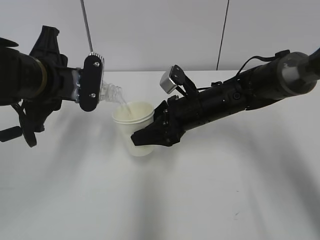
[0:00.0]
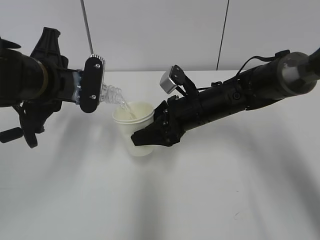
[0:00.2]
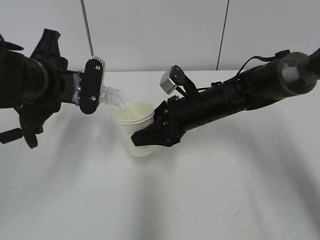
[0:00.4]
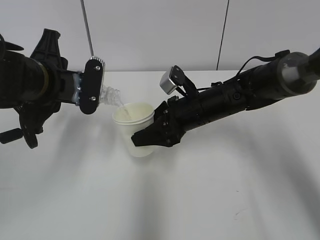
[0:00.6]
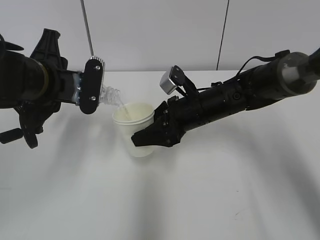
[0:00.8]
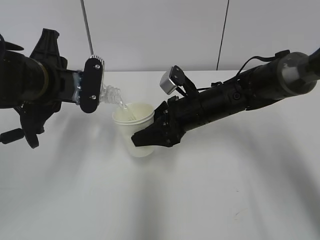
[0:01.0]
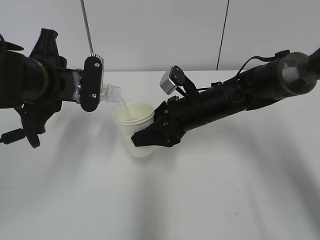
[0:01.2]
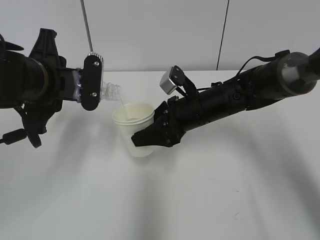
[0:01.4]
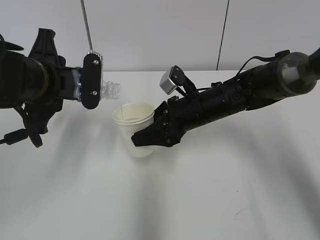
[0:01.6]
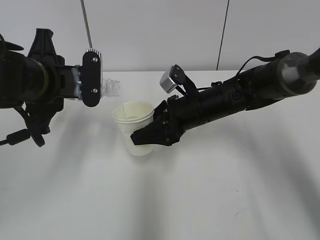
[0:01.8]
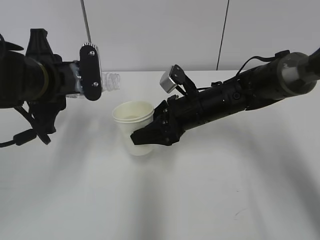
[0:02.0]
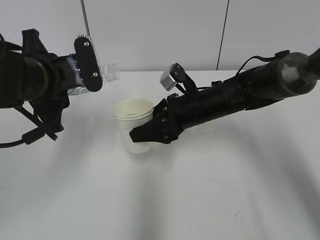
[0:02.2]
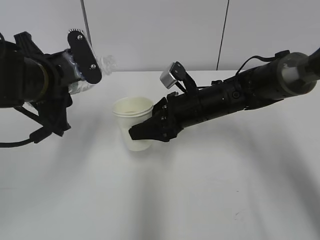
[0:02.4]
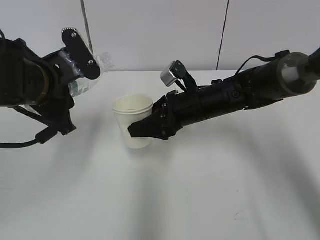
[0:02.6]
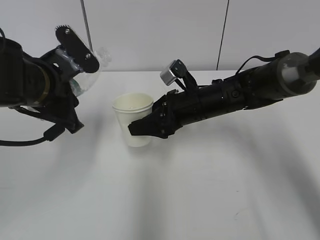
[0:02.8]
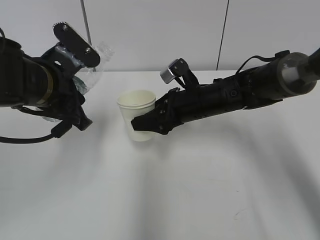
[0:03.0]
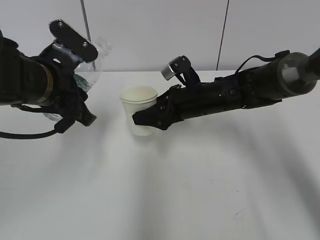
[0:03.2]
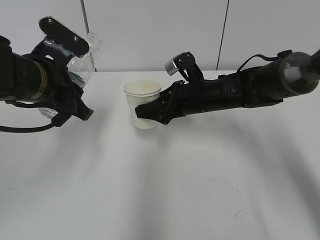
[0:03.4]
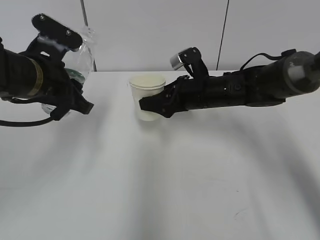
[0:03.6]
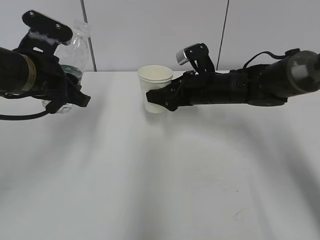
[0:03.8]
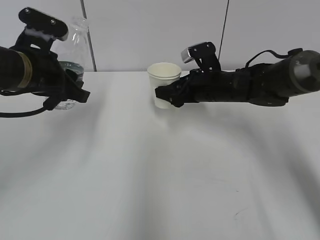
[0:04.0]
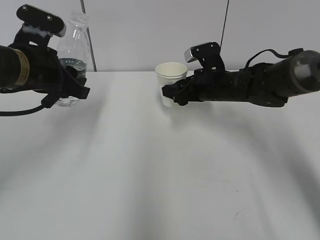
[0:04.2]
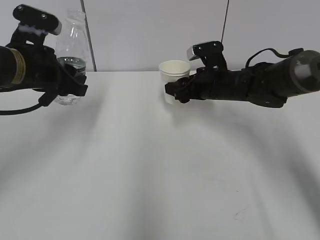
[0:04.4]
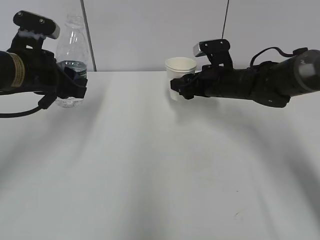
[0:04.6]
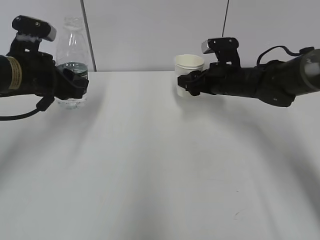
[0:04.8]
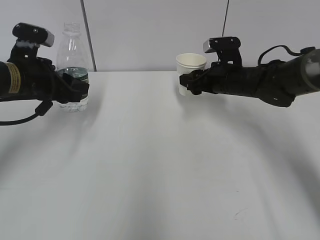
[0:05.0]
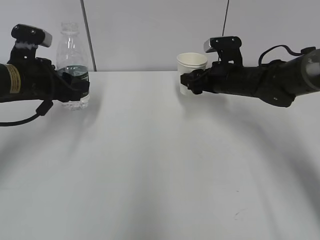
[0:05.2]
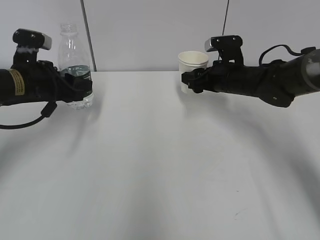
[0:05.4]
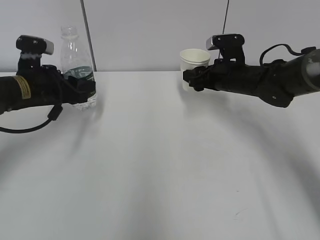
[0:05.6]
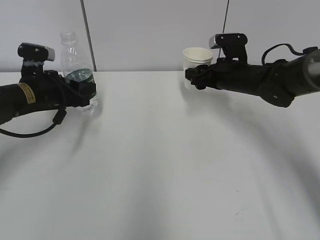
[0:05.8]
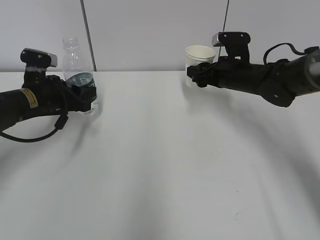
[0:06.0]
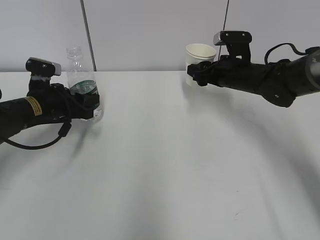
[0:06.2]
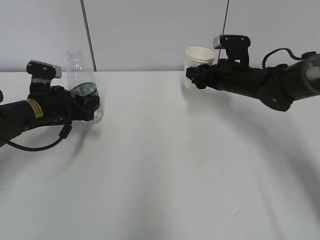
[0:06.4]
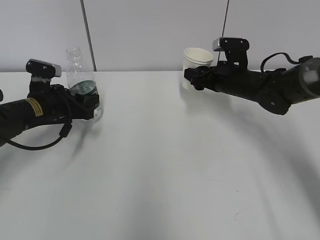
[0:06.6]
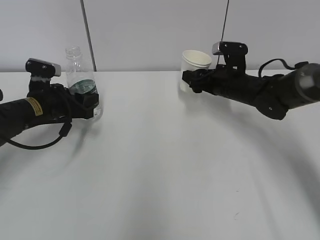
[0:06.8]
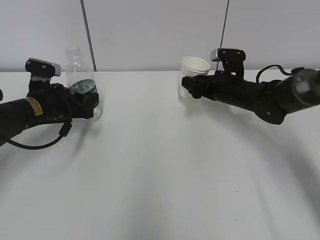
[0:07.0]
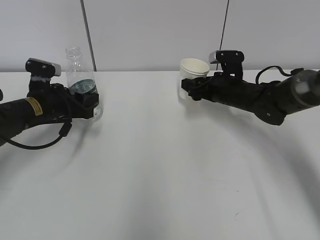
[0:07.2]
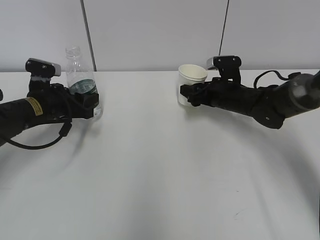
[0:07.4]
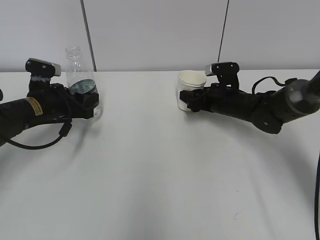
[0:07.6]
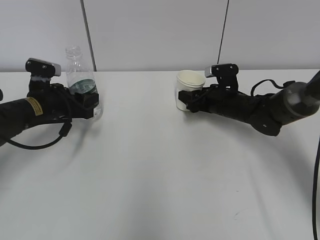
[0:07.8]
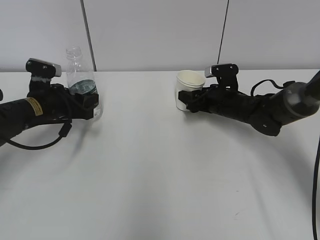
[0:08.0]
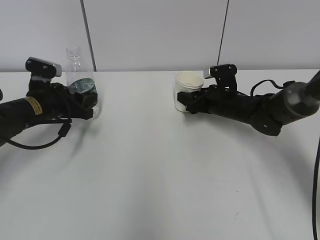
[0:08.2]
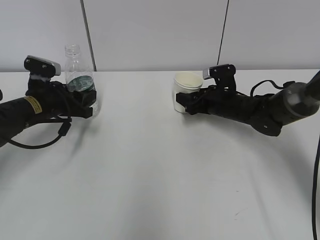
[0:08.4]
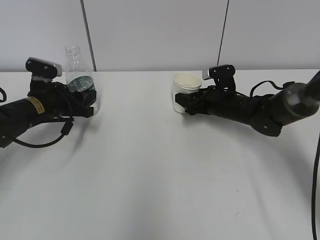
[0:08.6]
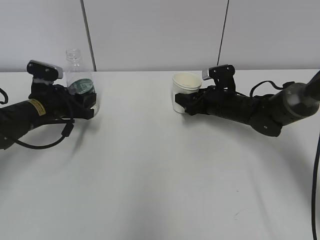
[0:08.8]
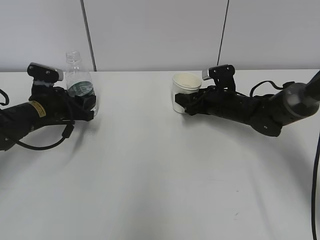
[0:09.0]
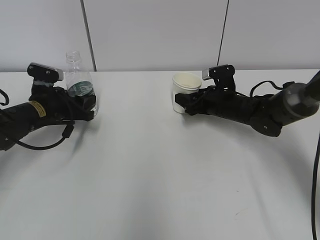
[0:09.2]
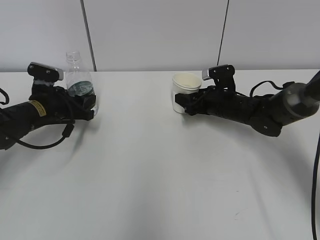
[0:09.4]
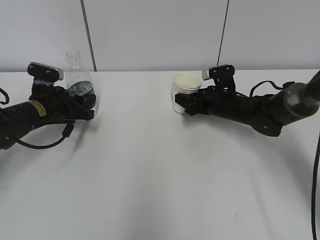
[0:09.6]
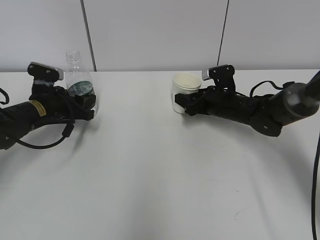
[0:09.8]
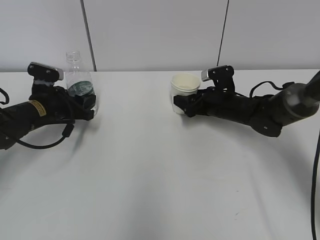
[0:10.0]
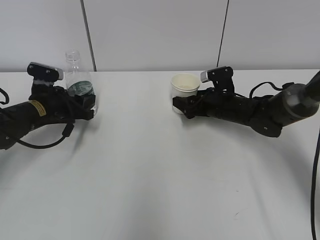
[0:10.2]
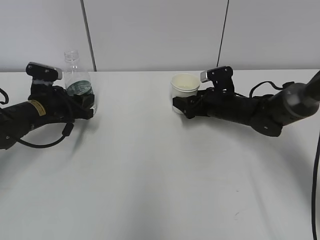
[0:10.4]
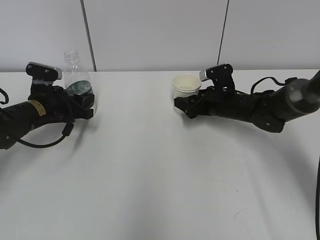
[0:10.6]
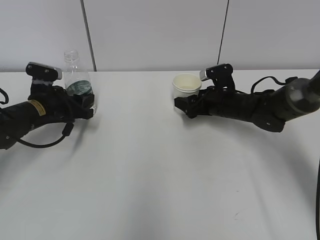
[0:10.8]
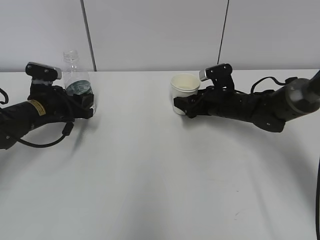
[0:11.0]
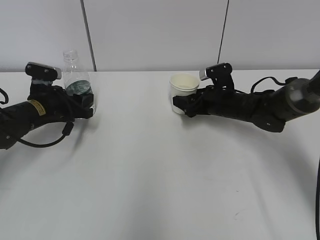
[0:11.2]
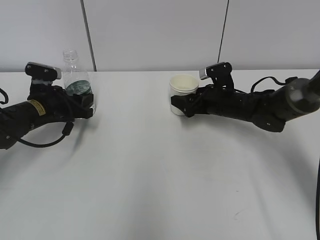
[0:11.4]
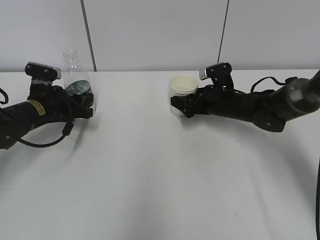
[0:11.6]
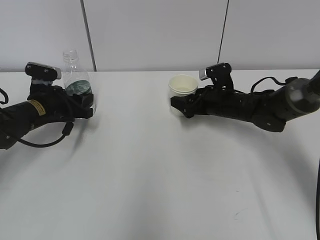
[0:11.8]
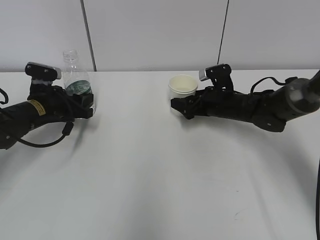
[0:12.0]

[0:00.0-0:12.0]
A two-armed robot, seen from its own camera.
Step, 0:00.8 to 0:07.4: Place the paper cup with the right hand.
Step, 0:07.6 to 0:09.0: Place the water bottle with the left hand.
0:00.0 to 0:01.6: Neither gripper changes place.
0:03.0 to 0:04.4: The left gripper moves approximately 5 cm. The right gripper moves to the right, some 5 cm.
0:04.4 to 0:06.0: The left gripper travels downward and forward by roughly 10 cm.
0:06.0 to 0:07.6: The right gripper heads downward, covering about 5 cm.
0:07.6 to 0:09.0: There are only small adjustments of the grippers.
0:09.0 to 0:10.4: The right gripper opens.
0:10.4 to 0:12.0: Both grippers stay about where they are.

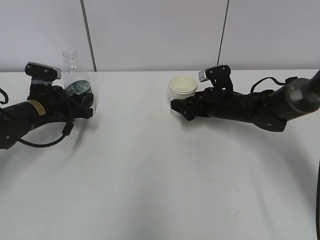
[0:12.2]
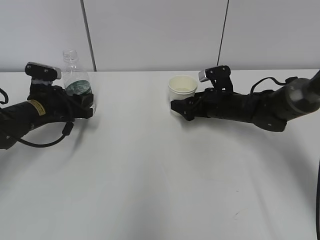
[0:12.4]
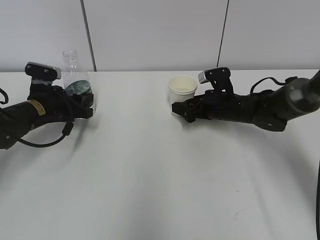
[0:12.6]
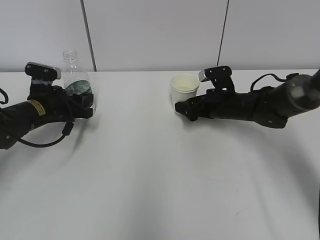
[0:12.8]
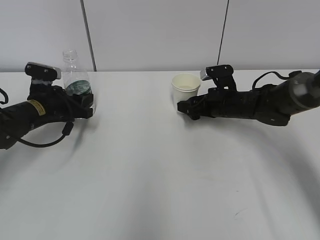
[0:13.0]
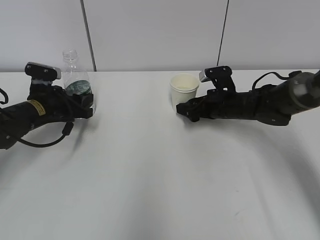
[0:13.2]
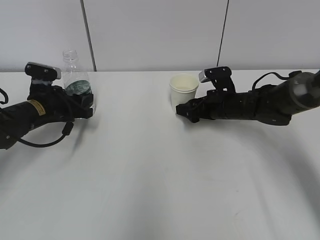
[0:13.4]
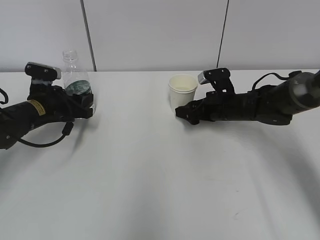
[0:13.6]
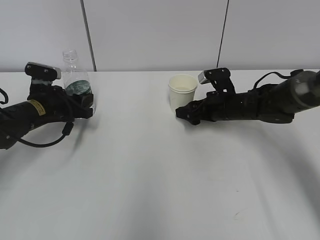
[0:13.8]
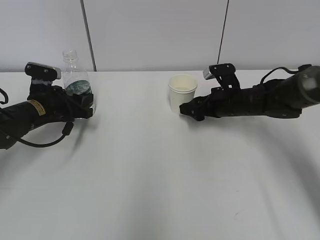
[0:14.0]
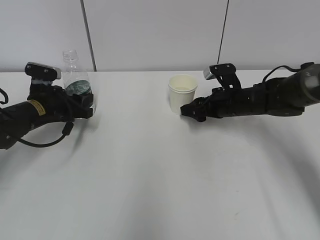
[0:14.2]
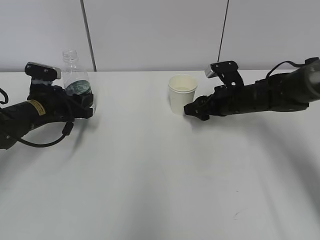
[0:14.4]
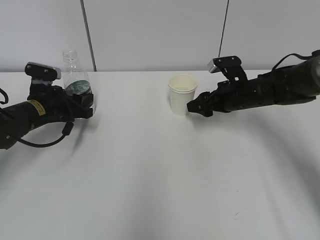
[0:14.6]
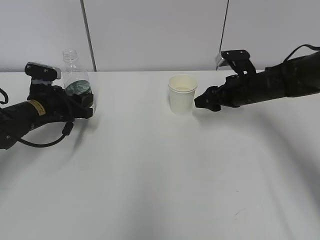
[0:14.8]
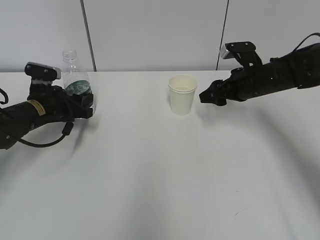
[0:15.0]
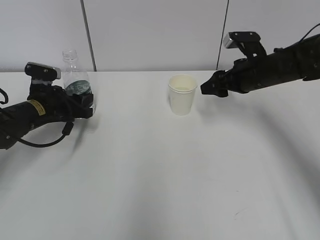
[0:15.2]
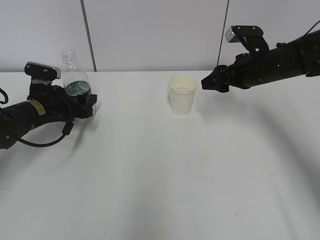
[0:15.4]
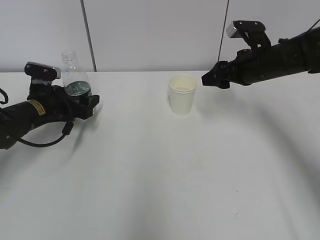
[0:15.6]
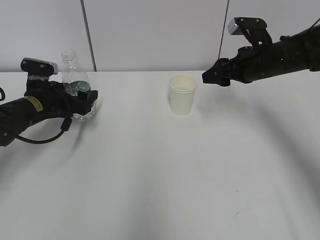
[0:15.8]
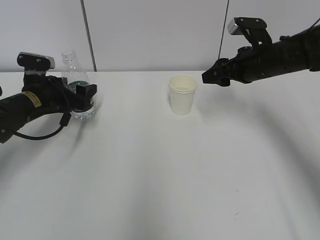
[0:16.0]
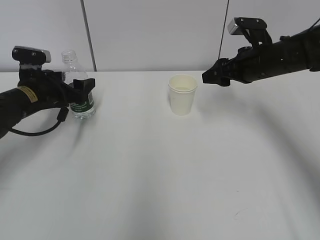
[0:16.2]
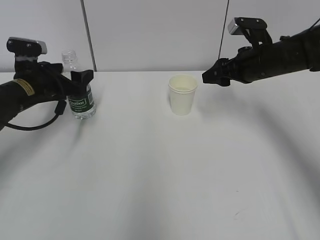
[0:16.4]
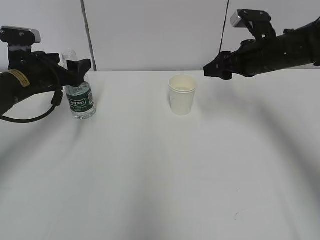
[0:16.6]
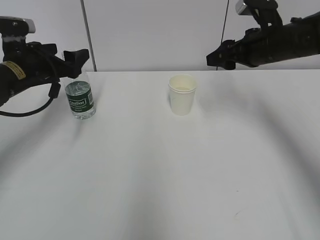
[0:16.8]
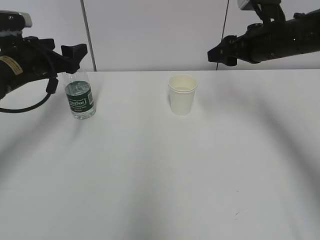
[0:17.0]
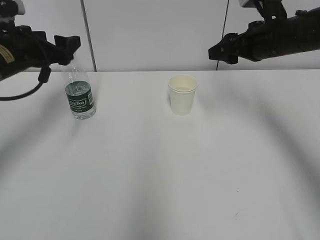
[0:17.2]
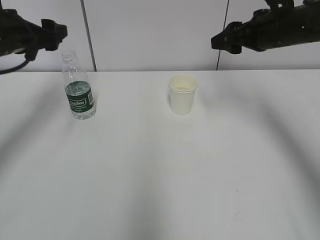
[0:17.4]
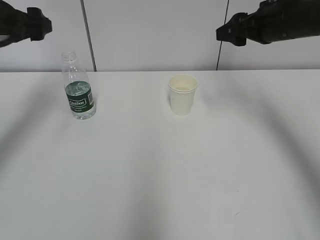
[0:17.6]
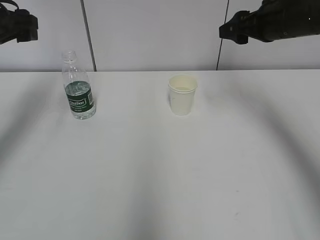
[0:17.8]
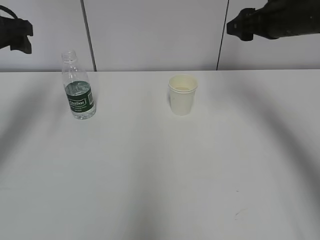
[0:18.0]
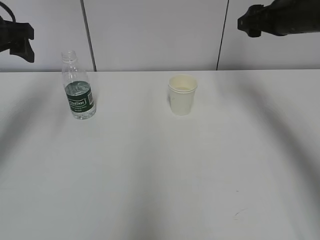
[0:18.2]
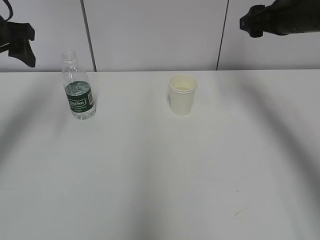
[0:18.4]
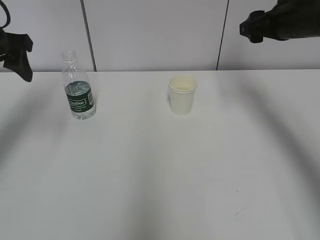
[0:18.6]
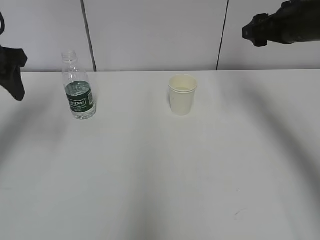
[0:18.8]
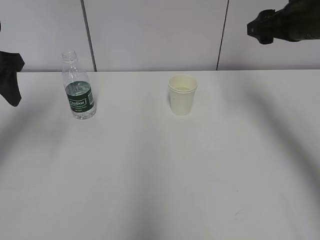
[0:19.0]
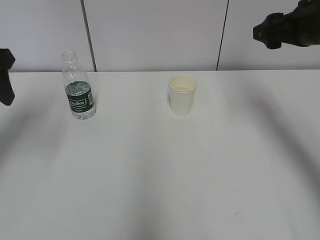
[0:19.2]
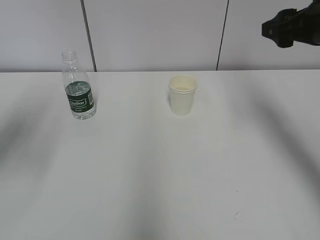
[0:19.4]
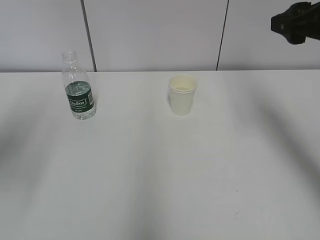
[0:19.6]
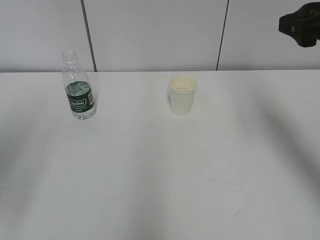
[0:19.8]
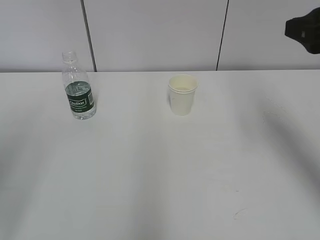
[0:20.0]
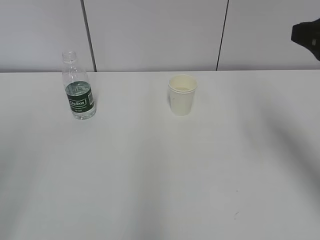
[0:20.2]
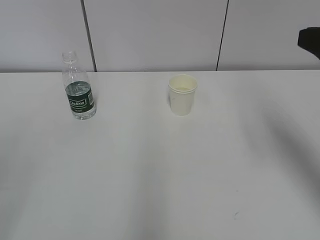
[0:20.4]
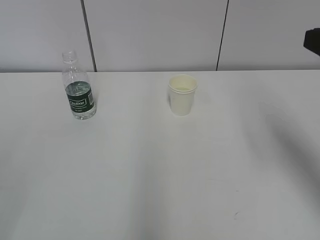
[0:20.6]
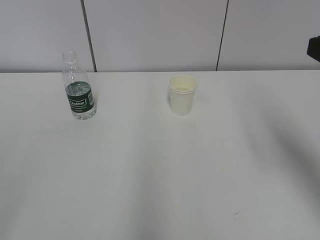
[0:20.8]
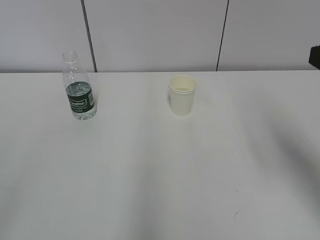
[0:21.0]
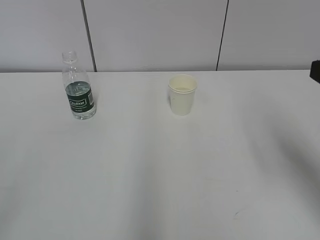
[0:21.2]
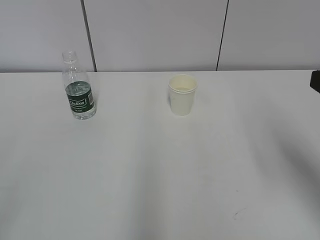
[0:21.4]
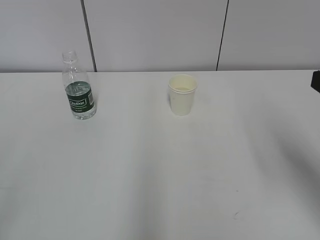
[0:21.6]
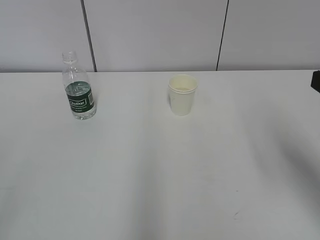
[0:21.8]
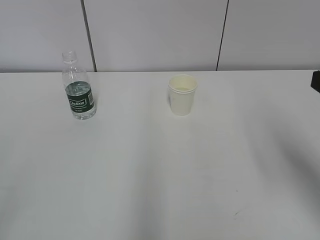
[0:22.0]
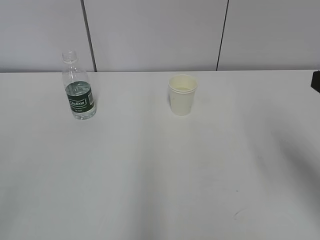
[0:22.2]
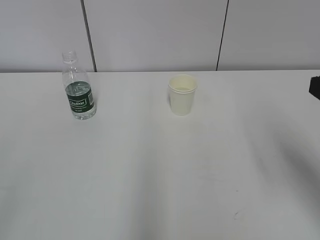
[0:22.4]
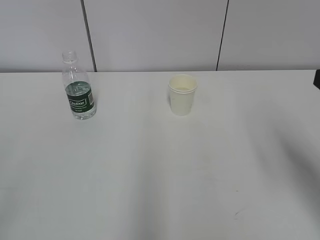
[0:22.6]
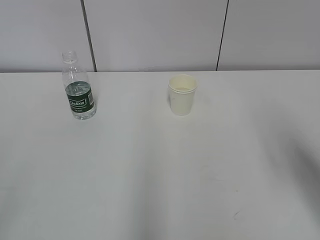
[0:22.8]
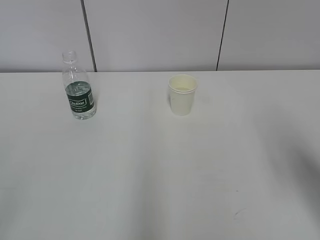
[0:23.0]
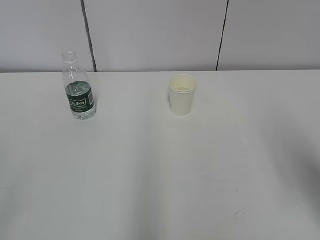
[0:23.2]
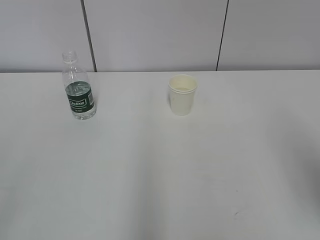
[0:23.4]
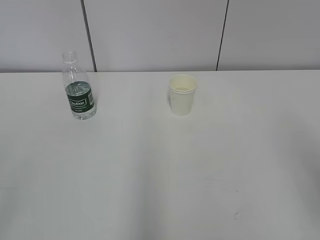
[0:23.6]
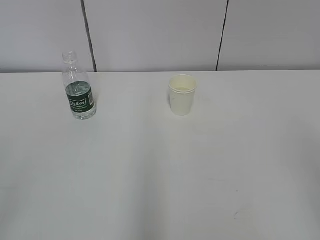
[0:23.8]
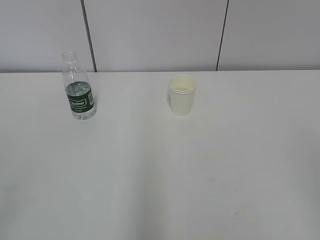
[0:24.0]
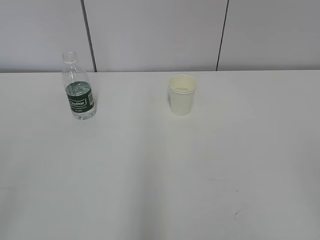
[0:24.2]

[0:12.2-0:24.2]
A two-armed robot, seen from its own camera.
0:12.2 to 0:13.8: The right gripper closes up.
0:13.8 to 0:15.2: The right gripper is displaced upward by roughly 10 cm.
0:15.2 to 0:16.6: The left gripper travels upward by approximately 5 cm, and opens.
0:16.6 to 0:18.2: The right gripper shifts about 10 cm upward. The left gripper goes roughly 15 cm upward.
0:18.2 to 0:19.8: Both grippers move backward, about 15 cm.
0:19.8 to 0:21.2: The right gripper travels backward by approximately 10 cm.
0:22.6 to 0:24.2: The right gripper travels backward by approximately 20 cm.
